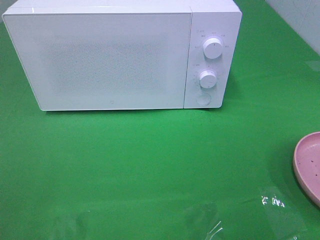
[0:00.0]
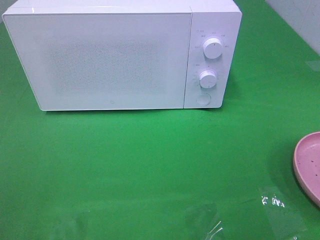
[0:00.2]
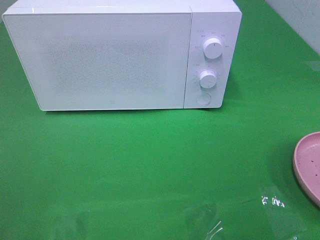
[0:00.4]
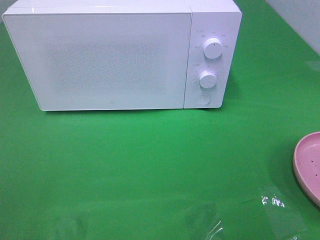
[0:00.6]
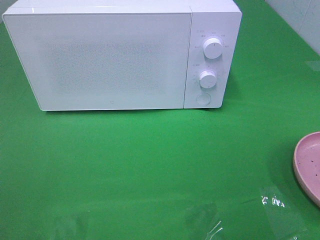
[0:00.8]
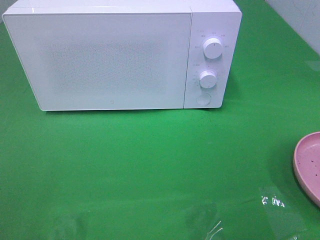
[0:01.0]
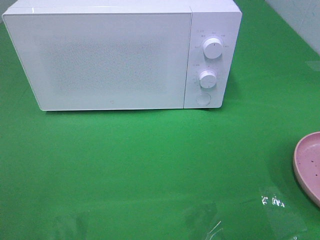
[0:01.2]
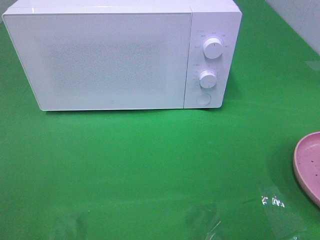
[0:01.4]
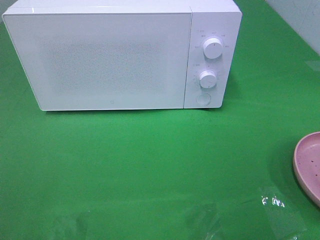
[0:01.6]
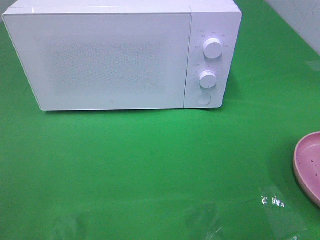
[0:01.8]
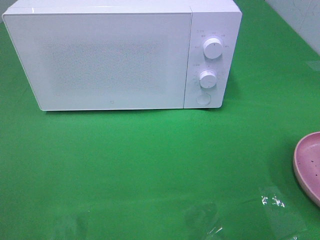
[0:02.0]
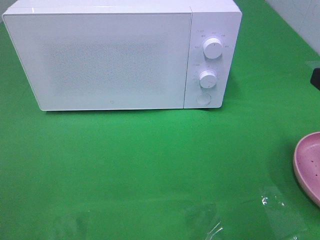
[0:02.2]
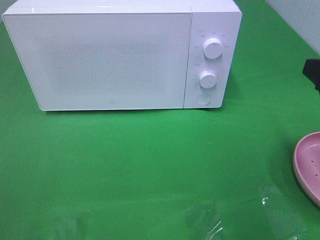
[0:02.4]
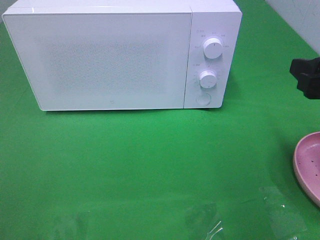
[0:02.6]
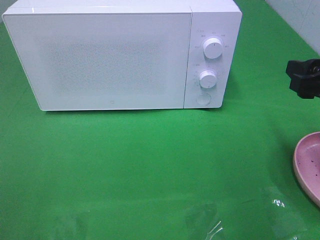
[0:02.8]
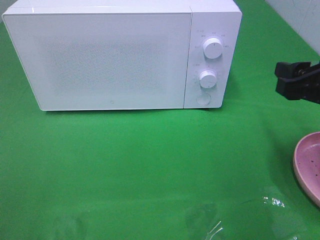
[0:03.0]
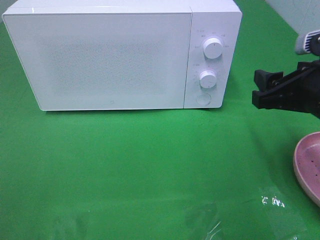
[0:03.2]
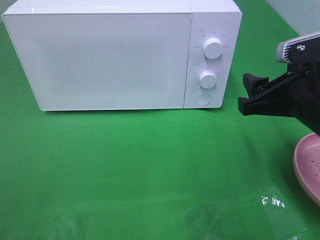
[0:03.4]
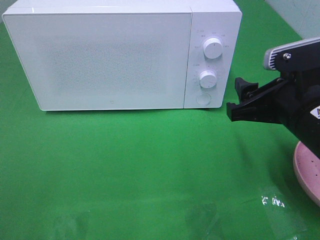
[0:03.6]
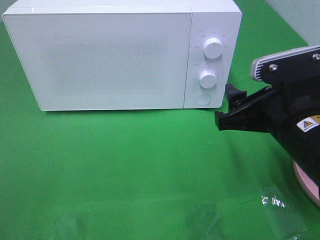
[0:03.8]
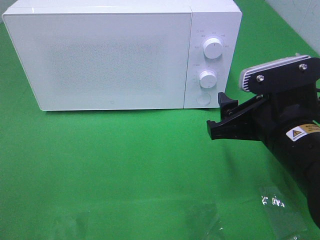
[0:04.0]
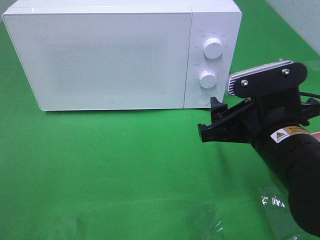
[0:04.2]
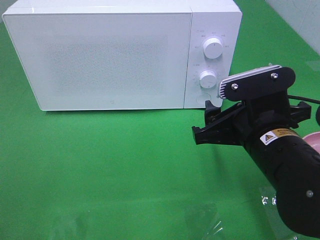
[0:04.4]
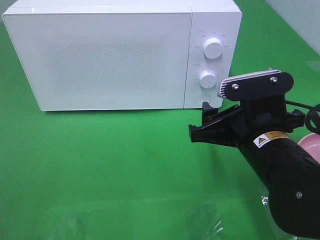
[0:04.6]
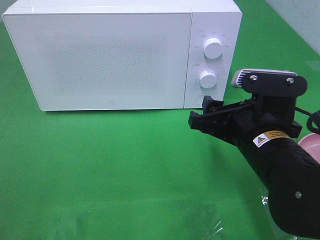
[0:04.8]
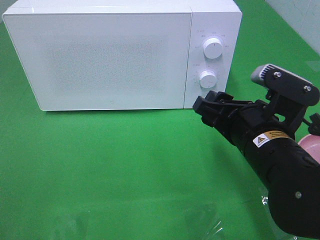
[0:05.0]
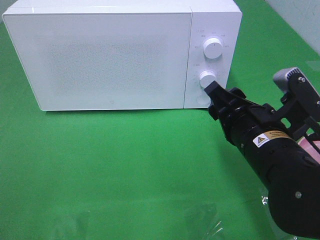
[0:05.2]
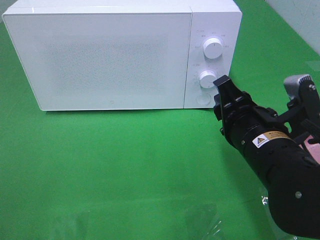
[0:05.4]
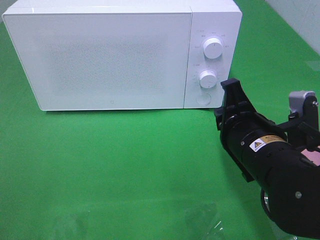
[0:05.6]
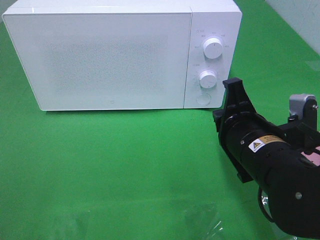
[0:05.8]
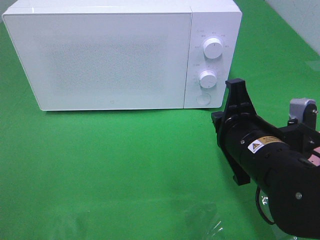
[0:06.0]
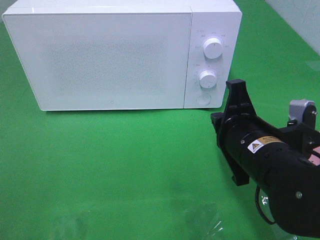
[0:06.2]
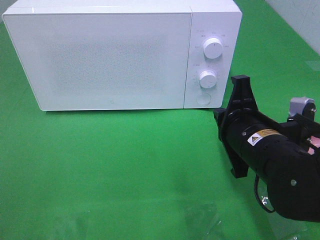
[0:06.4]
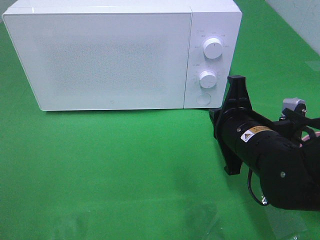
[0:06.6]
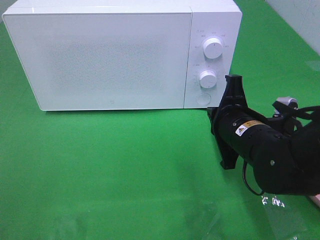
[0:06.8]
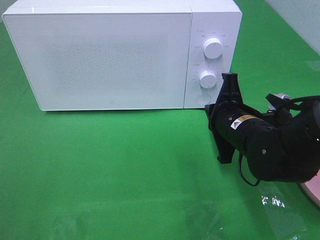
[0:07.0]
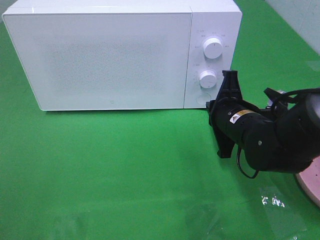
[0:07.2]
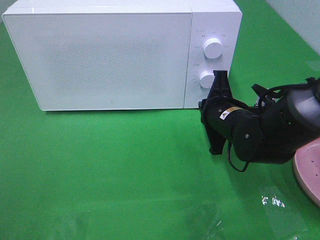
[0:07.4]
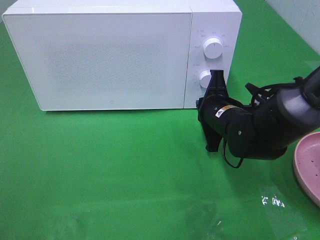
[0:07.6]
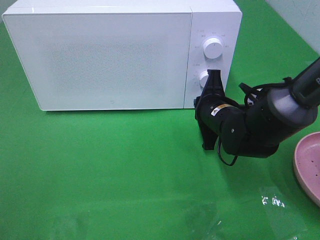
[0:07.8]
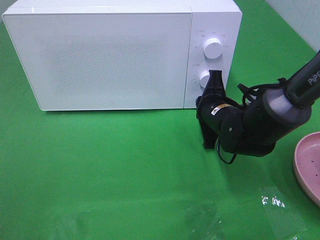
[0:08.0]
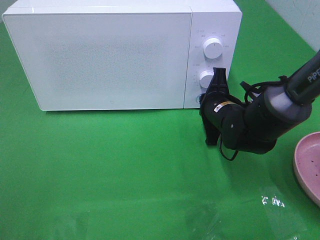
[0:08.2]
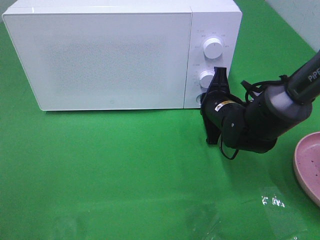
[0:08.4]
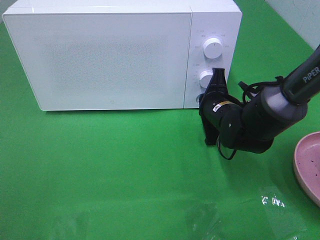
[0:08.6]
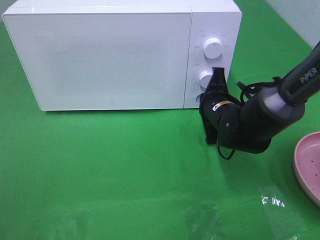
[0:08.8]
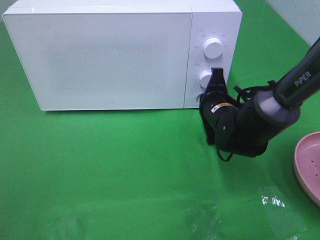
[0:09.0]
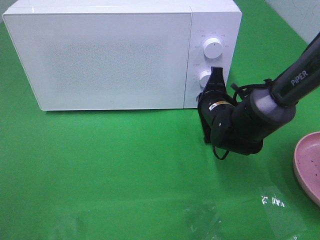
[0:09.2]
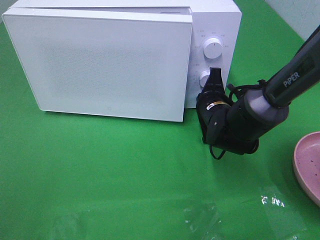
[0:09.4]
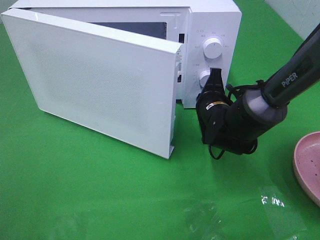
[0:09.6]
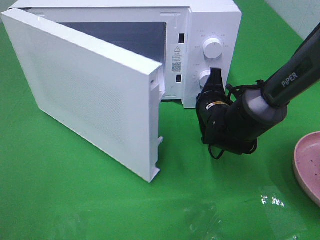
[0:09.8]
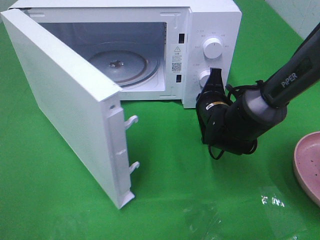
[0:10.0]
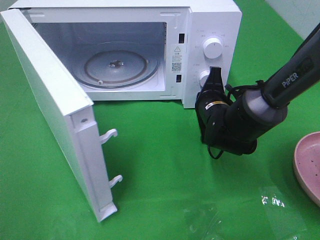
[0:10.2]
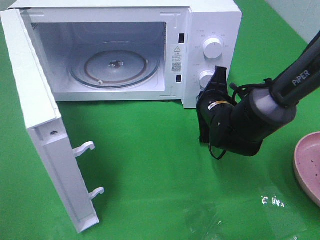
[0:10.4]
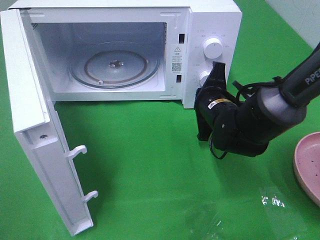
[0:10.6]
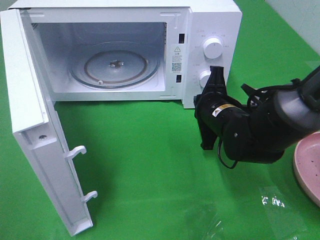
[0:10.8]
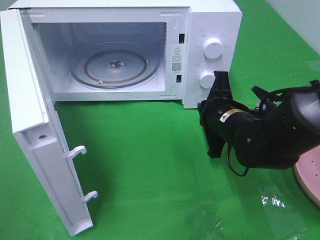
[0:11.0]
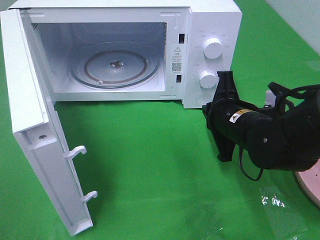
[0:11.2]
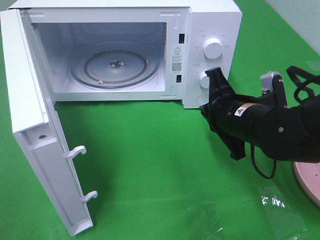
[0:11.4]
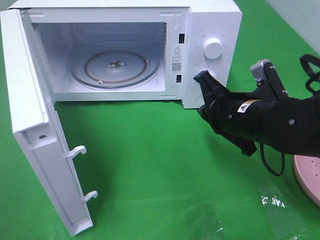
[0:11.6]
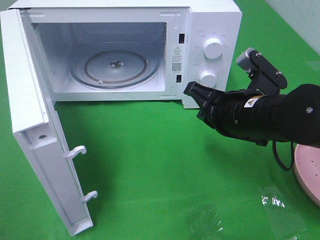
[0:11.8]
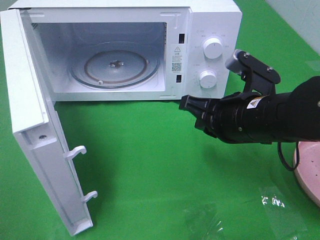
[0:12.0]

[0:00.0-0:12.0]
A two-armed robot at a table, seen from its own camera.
Task of the whole recording: Heat the burger.
Step, 0:00.0 to 0:11.2: Right hand: press the switch.
0:01.6 to 0:03.0: The right gripper travels forward and downward by approximately 15 cm.
0:03.0 to 0:04.4: The right gripper travels to the left and downward by roughly 15 cm.
0:04.4 to 0:06.0: The right gripper closes its fingers.
0:06.0 to 0:07.6: The right gripper shifts about 15 cm forward and downward.
0:07.6 to 0:09.0: The grippers make only small movements.
0:10.4 to 0:12.0: The right gripper heads backward and upward, covering about 15 cm.

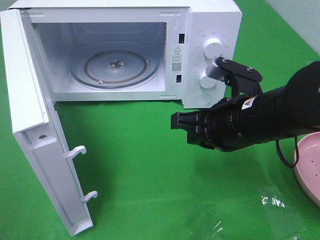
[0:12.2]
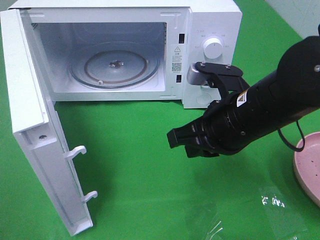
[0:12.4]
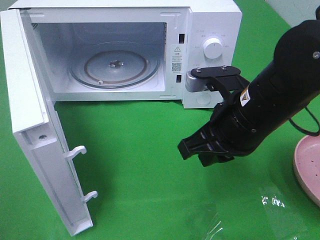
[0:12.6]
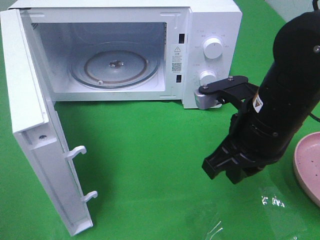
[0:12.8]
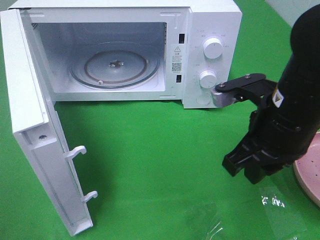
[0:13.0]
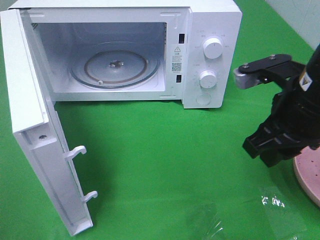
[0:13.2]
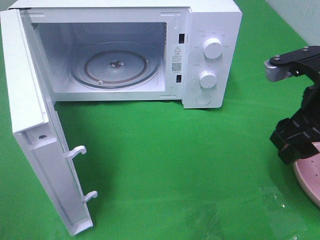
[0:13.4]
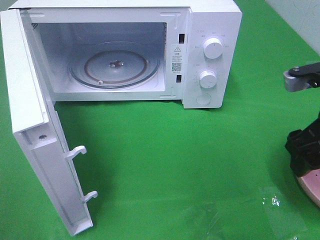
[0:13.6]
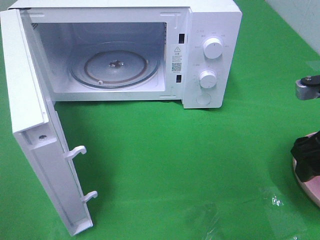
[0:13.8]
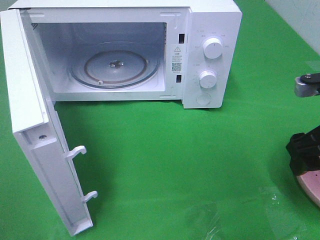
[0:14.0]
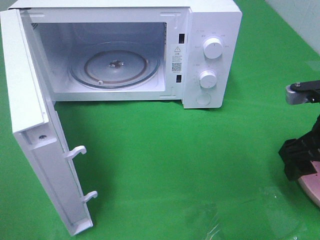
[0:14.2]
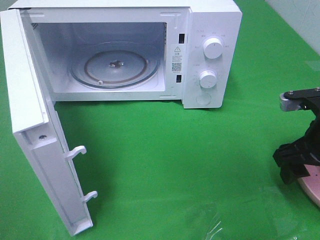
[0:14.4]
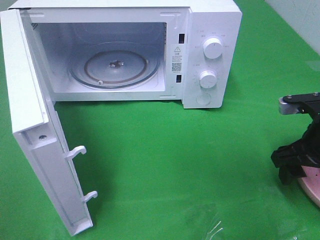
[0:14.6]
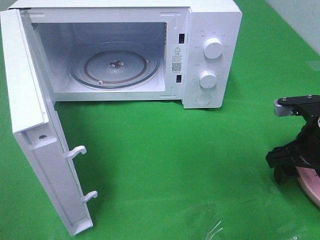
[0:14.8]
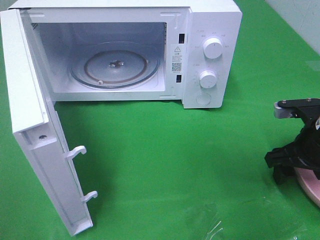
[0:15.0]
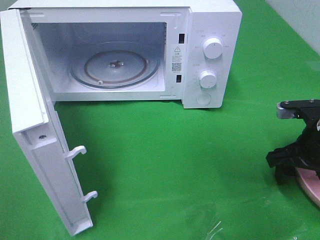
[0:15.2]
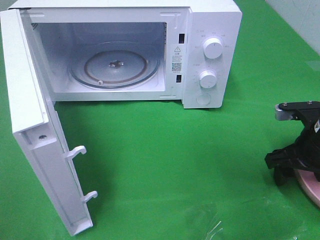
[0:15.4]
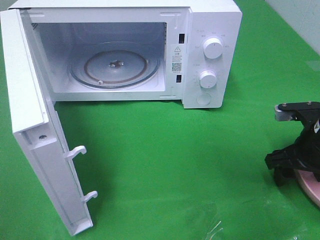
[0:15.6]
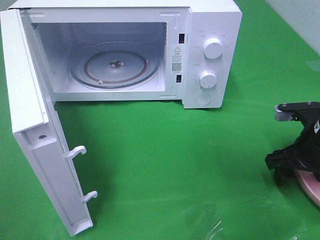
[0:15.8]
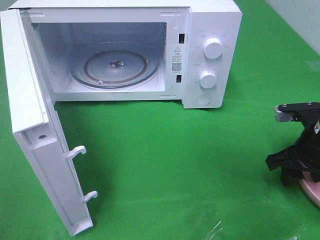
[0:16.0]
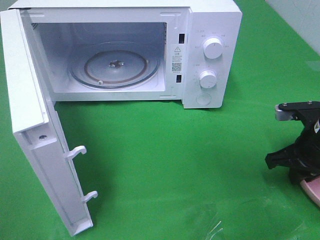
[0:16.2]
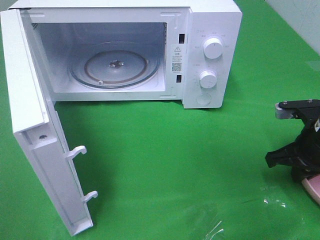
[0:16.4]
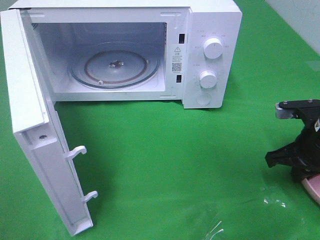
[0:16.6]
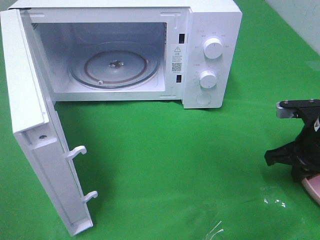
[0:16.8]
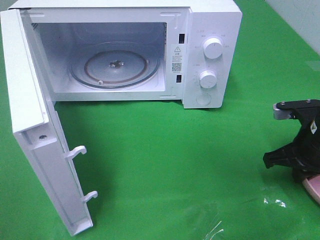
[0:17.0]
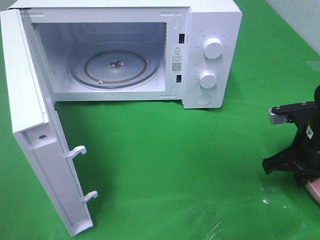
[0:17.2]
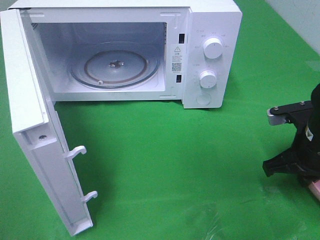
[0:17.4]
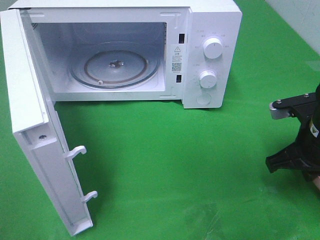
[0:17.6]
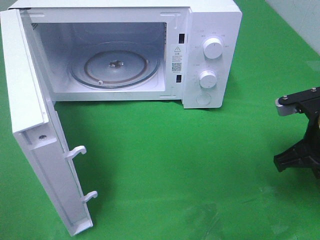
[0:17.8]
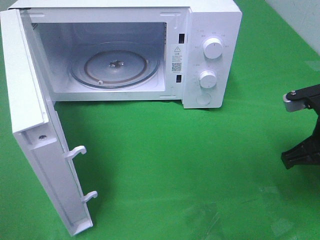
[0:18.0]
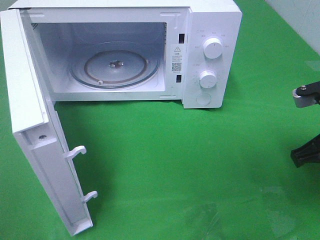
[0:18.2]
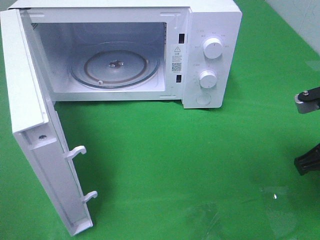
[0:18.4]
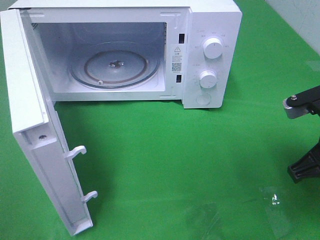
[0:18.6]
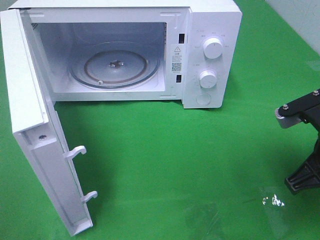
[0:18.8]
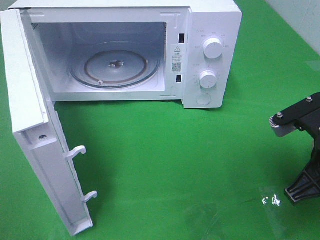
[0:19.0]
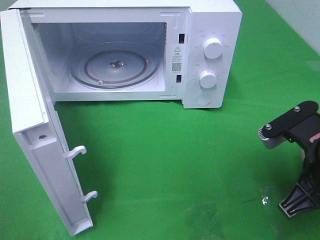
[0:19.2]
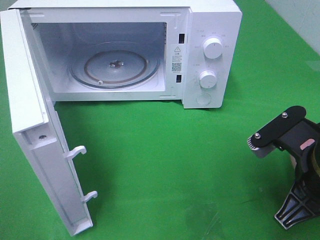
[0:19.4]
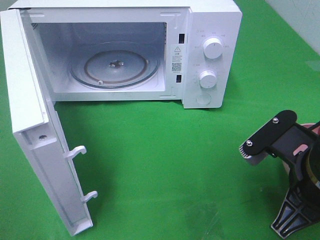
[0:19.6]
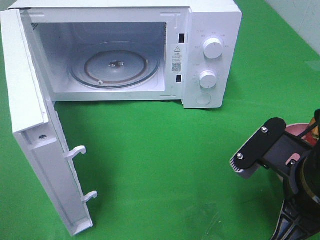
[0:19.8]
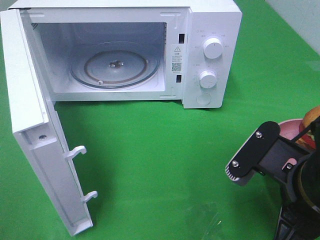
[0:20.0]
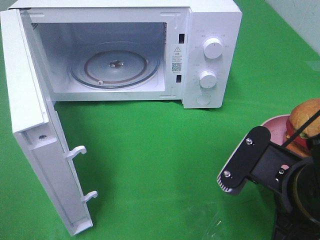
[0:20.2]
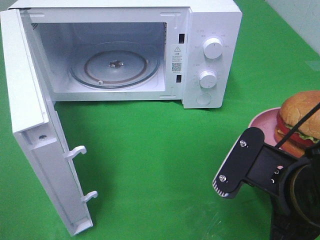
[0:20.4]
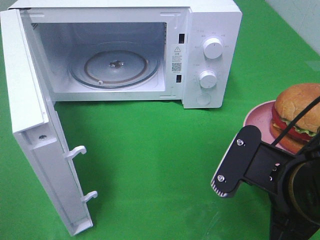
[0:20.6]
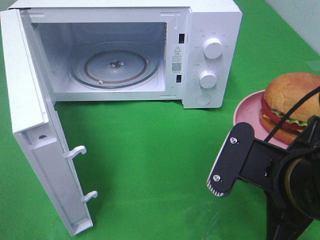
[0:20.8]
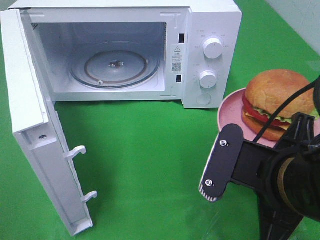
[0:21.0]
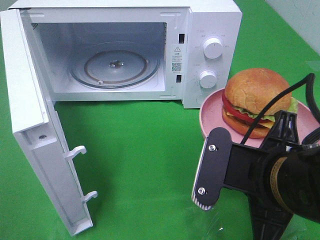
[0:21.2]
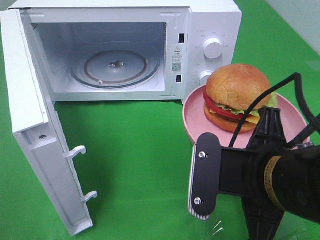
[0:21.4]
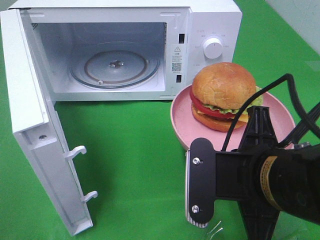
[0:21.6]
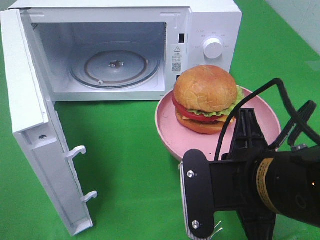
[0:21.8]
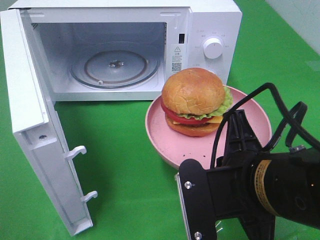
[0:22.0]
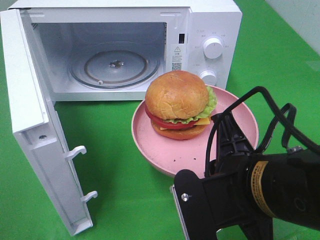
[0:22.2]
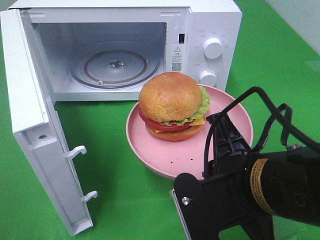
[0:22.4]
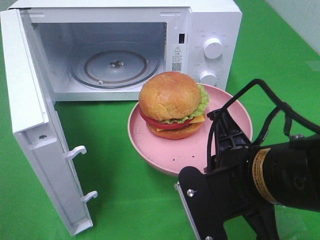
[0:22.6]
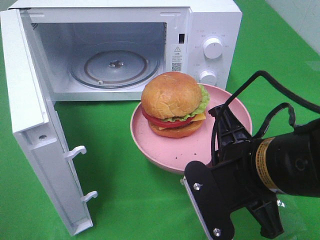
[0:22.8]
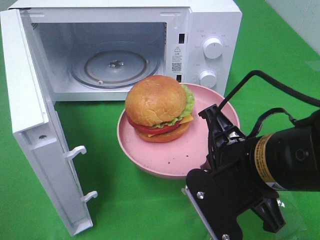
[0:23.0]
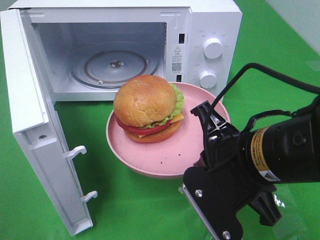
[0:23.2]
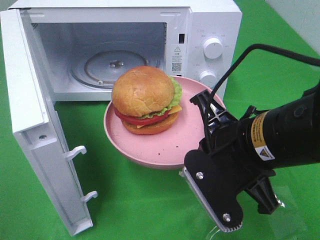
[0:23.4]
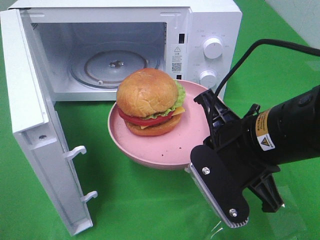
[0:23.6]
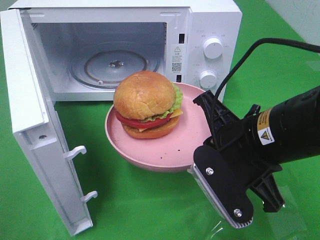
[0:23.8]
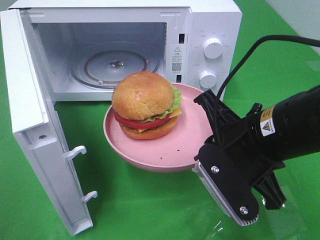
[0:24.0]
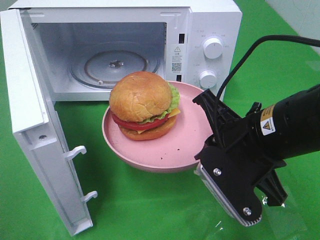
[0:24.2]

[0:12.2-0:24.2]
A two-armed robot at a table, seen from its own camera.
Task of the whole recording: Heat the burger.
Step, 0:12.2 to 0:16.6: Right hand: grab the plate with the hamburger.
0:12.2 to 0:13.8: The right gripper moves to the right, some 15 cm, and opens.
0:13.8 to 0:15.2: The right gripper heads downward, covering some 10 cm.
0:15.2 to 0:16.6: The right gripper closes its fingers.
0:16.6 to 0:18.2: The right gripper moves upward, about 5 cm.
0:18.2 to 0:19.8: The right gripper moves to the left and backward, some 10 cm.
0:22.6 to 0:24.2: The right gripper ends up about 5 cm from where it was.
